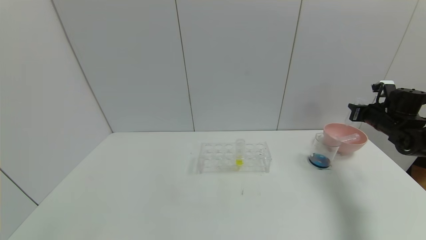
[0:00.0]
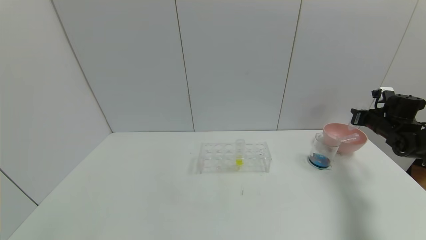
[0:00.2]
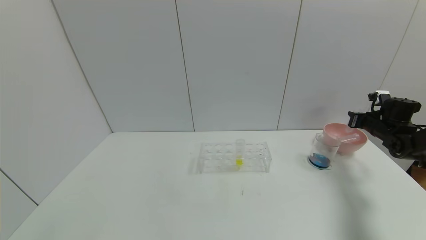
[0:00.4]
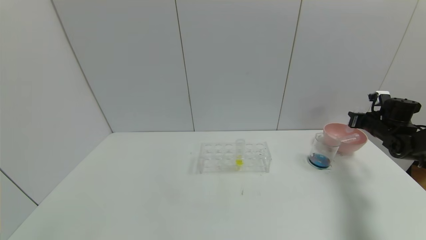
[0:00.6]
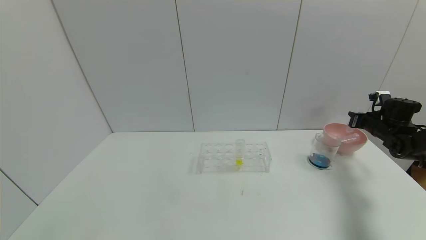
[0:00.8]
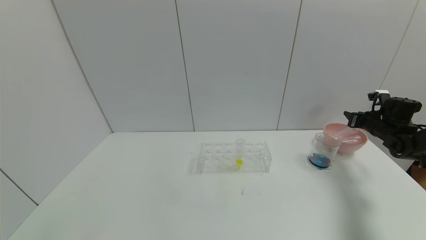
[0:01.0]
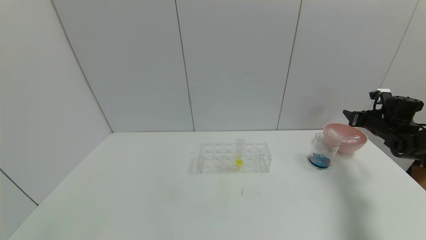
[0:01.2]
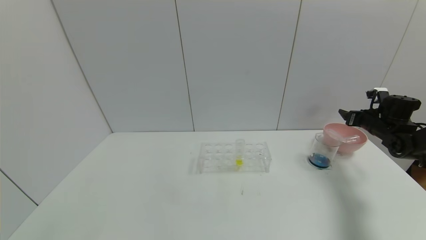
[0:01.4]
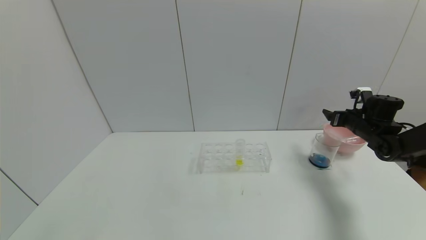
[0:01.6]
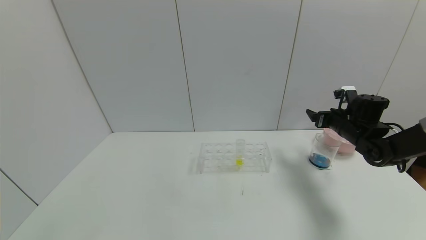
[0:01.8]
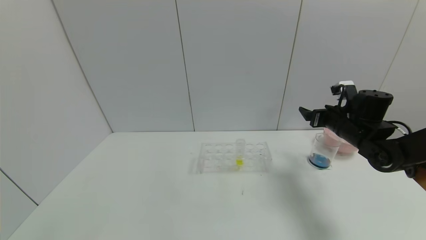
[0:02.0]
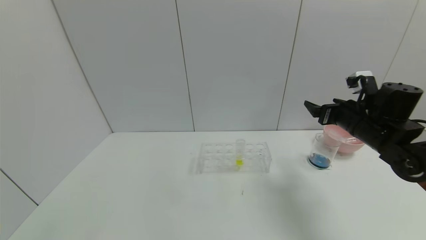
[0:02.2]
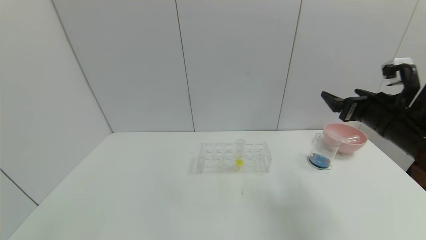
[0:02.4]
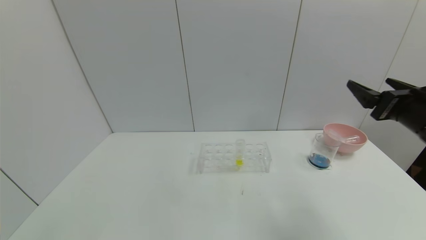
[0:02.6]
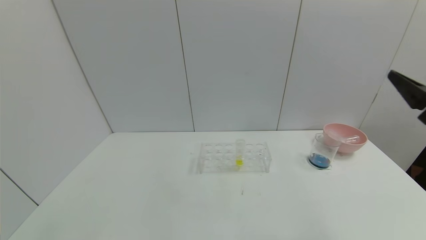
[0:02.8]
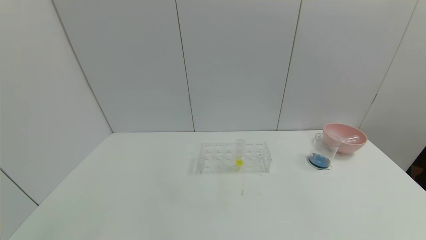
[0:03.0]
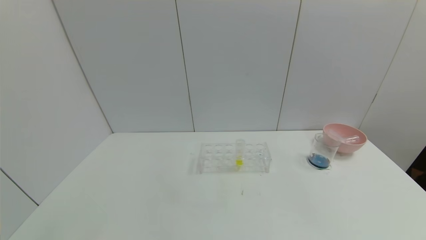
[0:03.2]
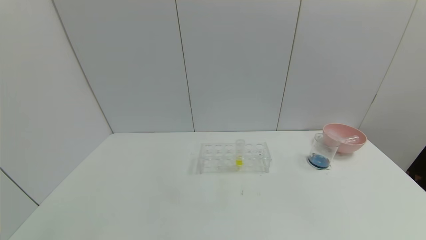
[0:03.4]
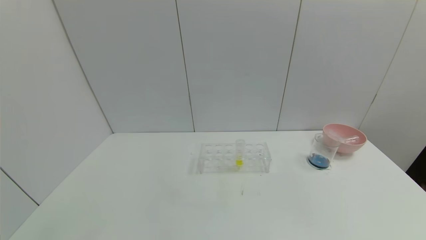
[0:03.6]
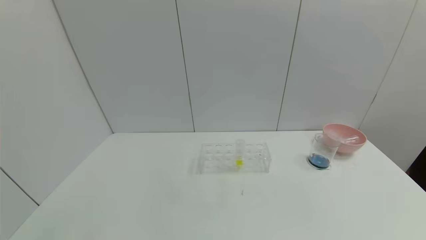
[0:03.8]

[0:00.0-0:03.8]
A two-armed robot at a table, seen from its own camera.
Task of the whole recording: pick up the test tube with red pigment and the test tube with blue pigment by grippers and pour them into the container.
0:00.0 to 0:01.2: The right gripper opens.
0:01.2 to 0:02.6: The right gripper goes approximately 30 cm backward, to the left and upward, and opens up.
0:02.6 to 0:03.8: The right gripper travels backward by some 30 cm.

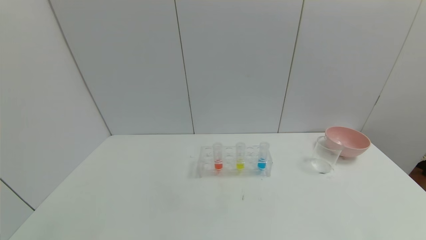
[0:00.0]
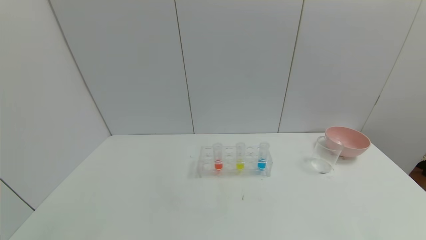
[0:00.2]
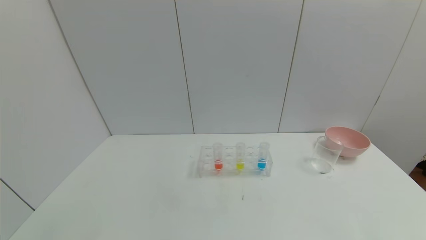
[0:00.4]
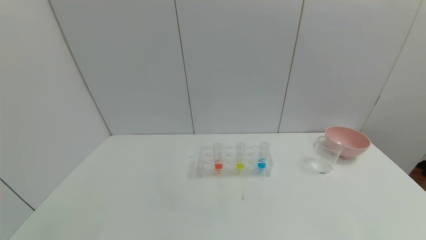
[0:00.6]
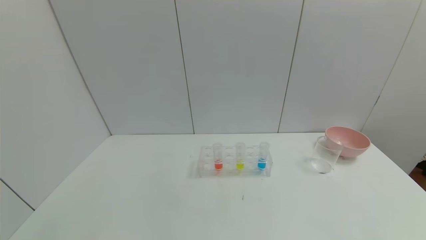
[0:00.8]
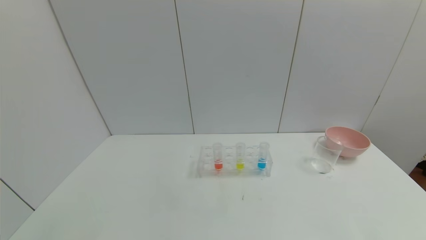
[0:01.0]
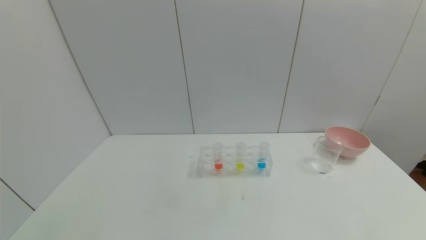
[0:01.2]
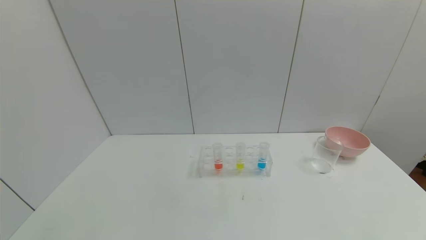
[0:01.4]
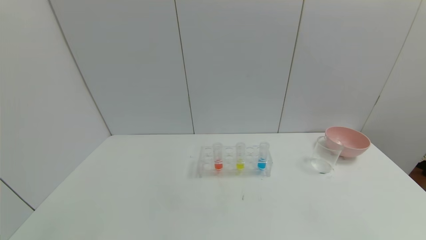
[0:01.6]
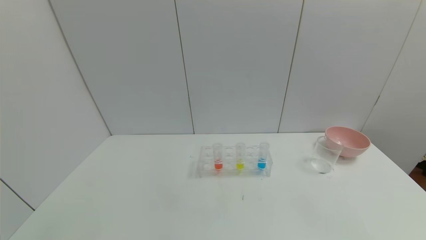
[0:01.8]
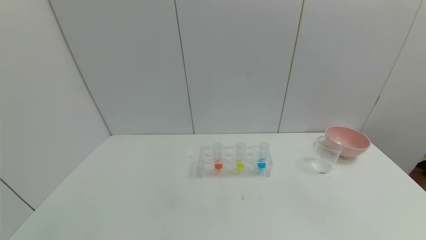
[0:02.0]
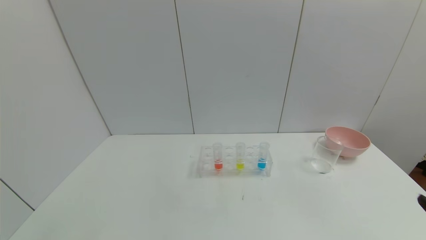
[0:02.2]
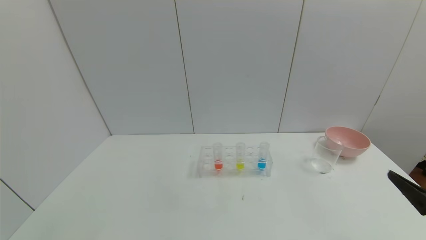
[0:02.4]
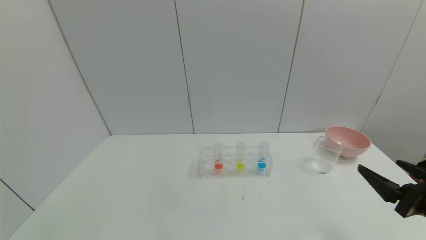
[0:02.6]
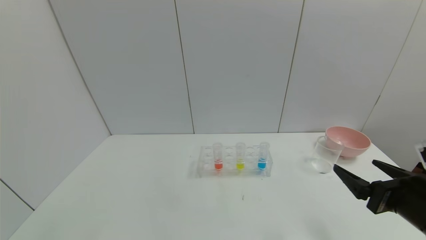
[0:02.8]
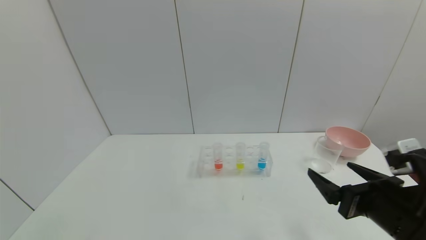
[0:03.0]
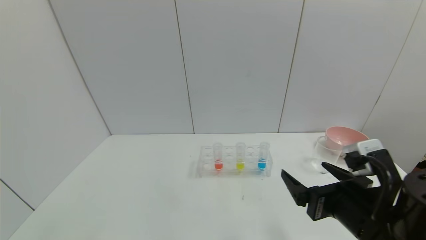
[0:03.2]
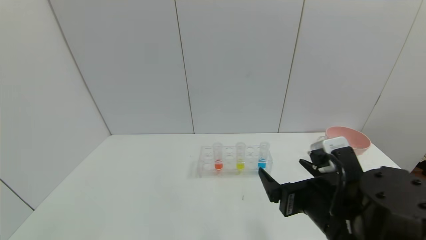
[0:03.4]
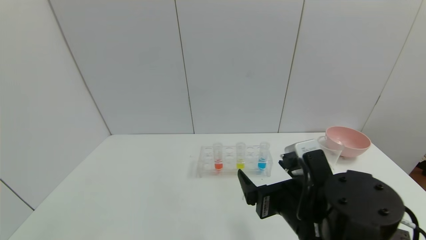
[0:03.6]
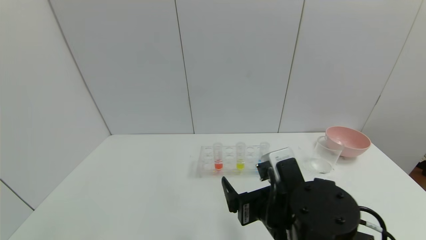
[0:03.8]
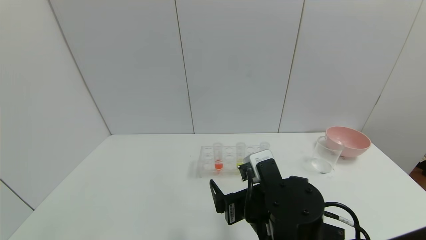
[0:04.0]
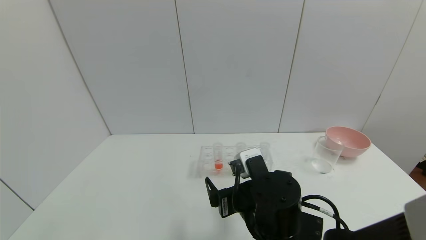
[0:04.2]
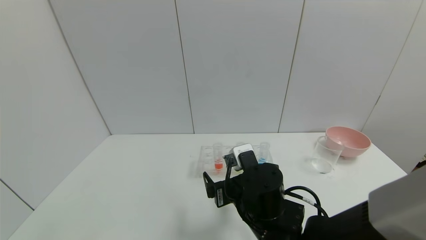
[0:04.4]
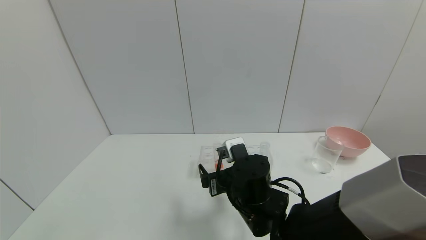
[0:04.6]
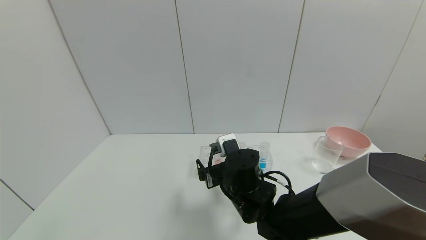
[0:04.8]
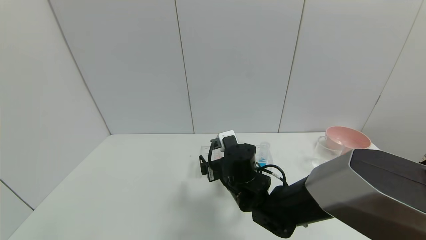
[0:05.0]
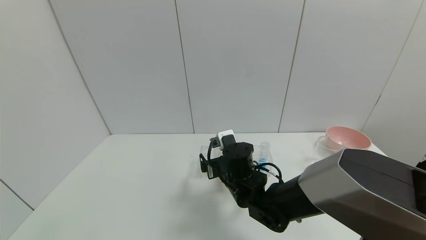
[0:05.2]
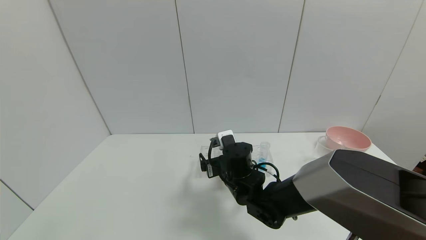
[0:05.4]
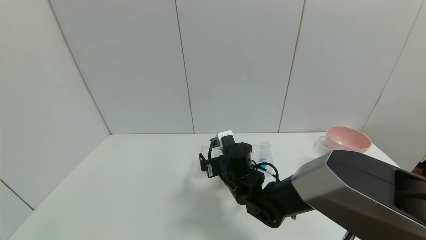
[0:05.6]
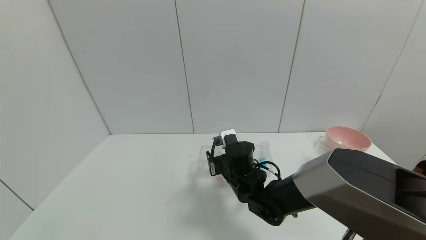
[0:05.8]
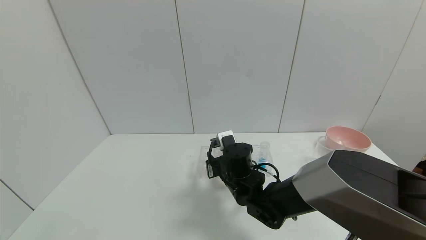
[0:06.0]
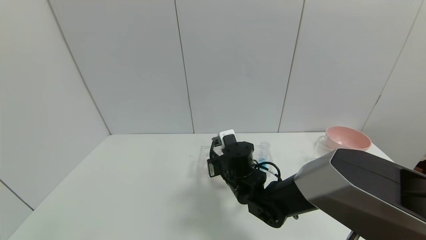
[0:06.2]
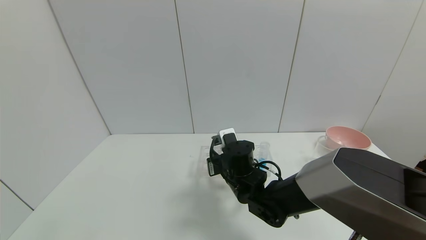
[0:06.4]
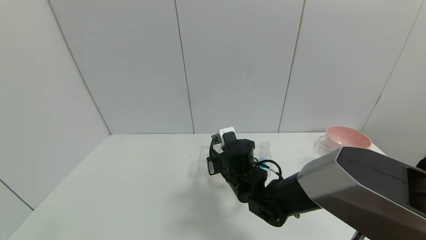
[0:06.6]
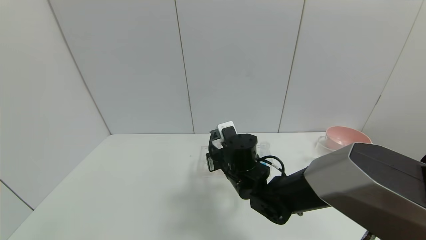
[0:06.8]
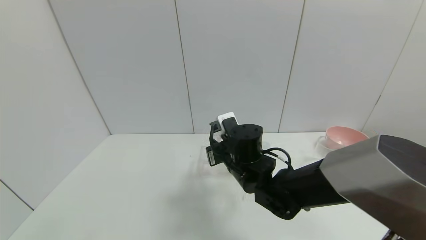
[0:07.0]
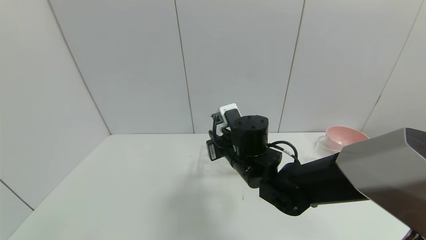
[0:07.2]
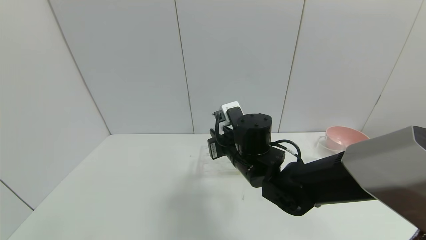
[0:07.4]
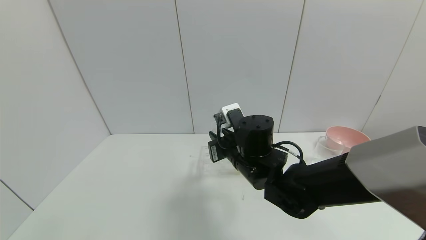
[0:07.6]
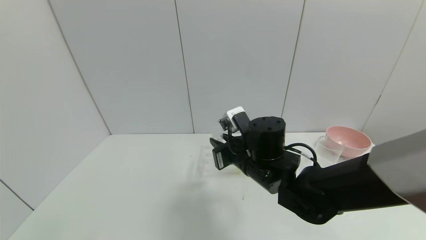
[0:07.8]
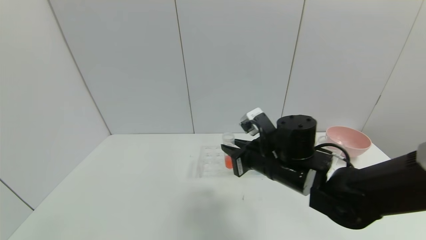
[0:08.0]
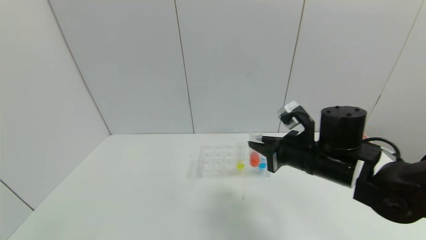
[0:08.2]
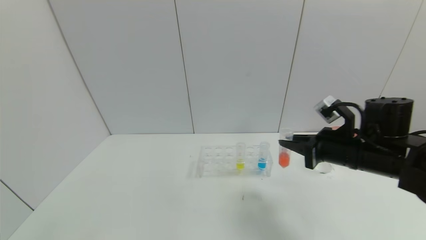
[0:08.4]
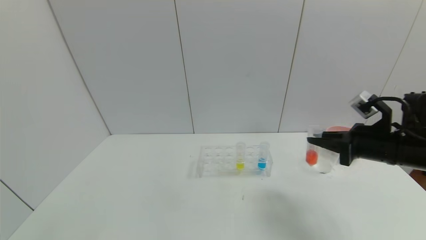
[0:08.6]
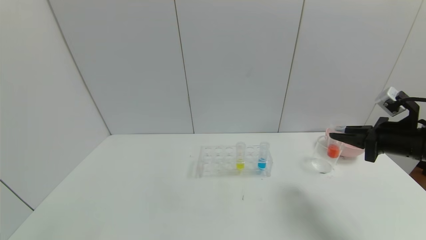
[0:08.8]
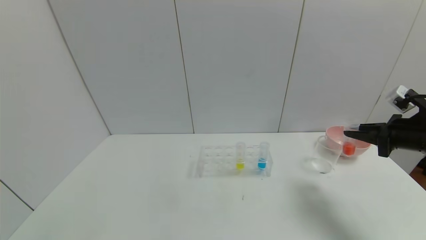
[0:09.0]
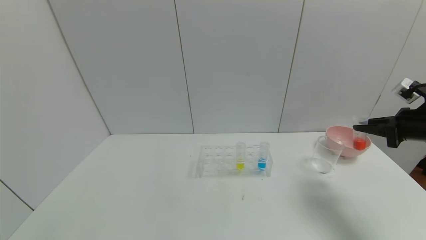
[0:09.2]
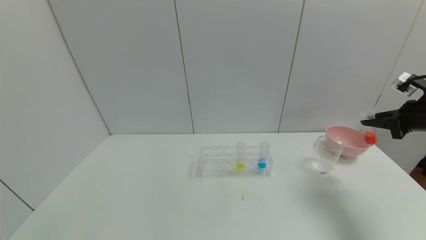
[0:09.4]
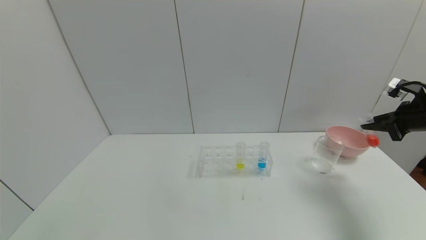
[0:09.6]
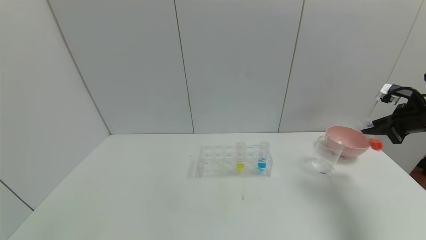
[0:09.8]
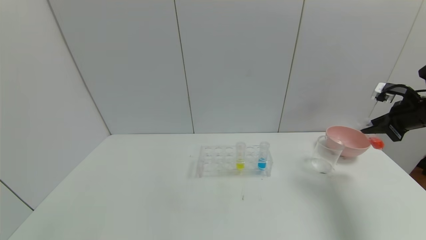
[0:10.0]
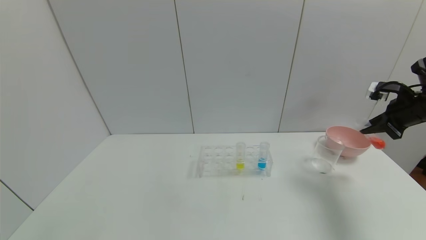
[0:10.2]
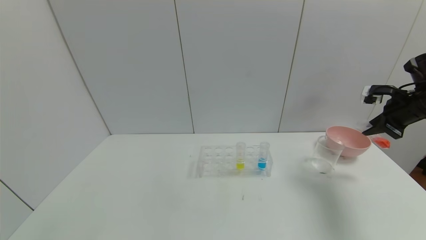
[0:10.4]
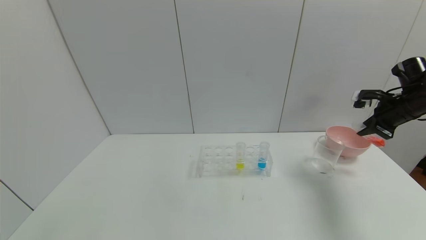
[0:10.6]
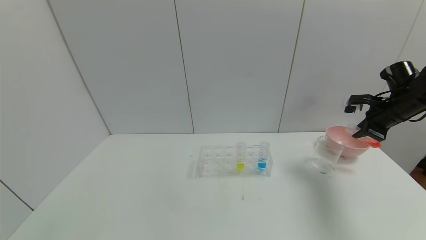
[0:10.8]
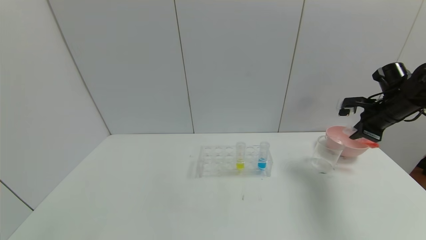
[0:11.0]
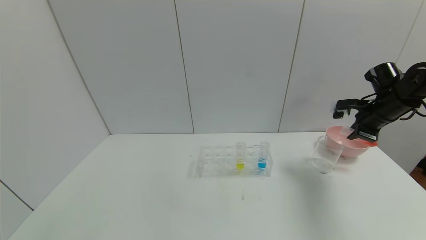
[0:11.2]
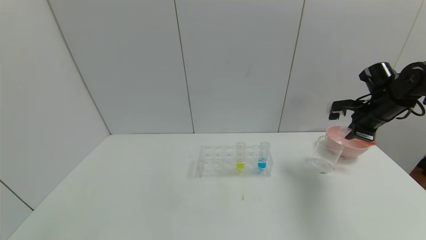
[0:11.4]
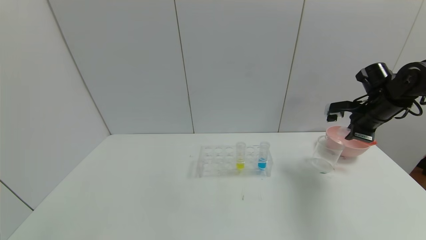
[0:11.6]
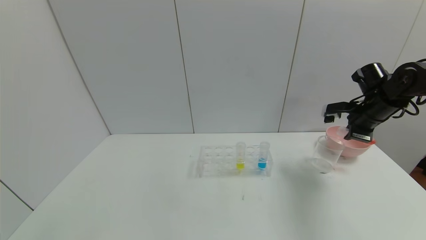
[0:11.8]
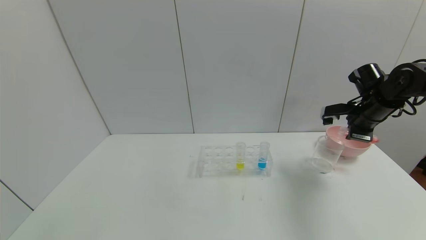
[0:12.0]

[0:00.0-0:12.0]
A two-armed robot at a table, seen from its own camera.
Task of the whole recording: pick up the test tube with red pigment and the test tube with blue pigment by grippers and pour them into the container.
Step, 0:00.0 to 0:09.0: Pick up the test tube containing the red reagent with right gripper.
0:01.6 to 0:03.0: The right gripper is displaced forward and to the left by approximately 20 cm.
0:03.0 to 0:04.4: The right gripper shifts about 20 cm to the left and forward.
0:04.4 to 0:06.0: The right gripper shifts some 10 cm forward, and closes up.
0:06.0 to 0:07.6: The right gripper shifts roughly 10 cm upward.
0:07.6 to 0:09.0: The right gripper heads to the right, covering about 35 cm.
0:09.0 to 0:10.4: The right gripper is displaced forward by about 10 cm.
0:10.4 to 0:12.0: The right gripper is displaced to the left by approximately 5 cm.

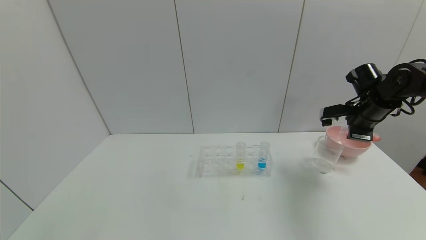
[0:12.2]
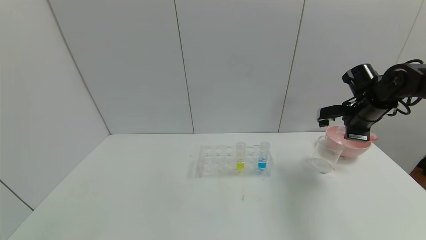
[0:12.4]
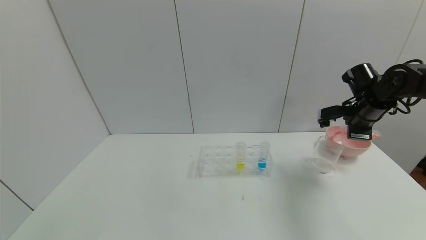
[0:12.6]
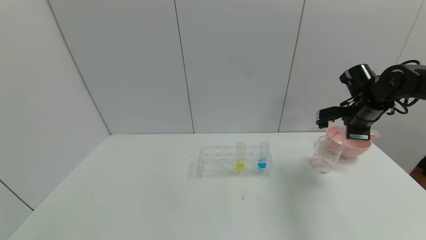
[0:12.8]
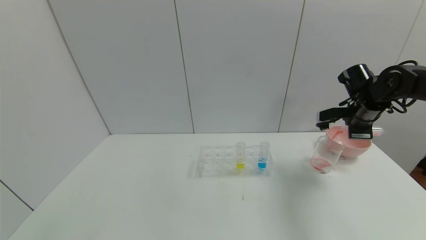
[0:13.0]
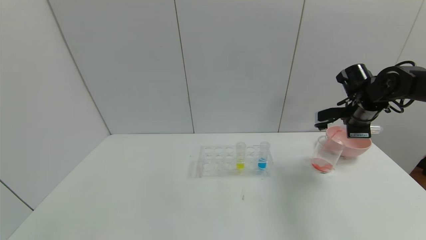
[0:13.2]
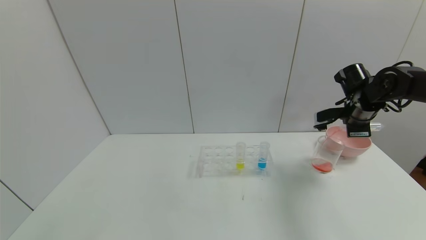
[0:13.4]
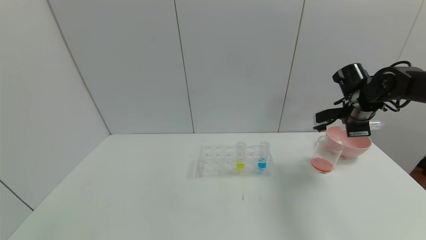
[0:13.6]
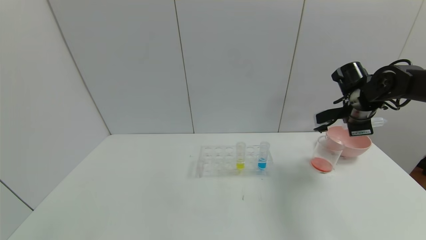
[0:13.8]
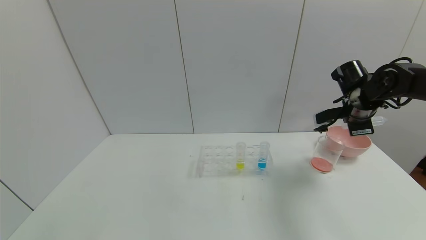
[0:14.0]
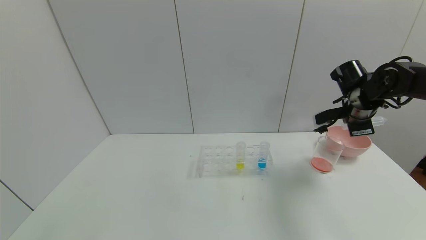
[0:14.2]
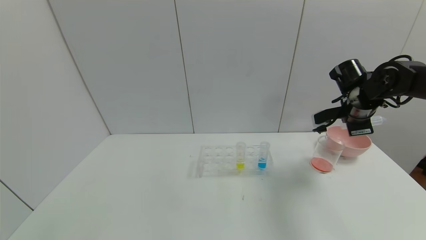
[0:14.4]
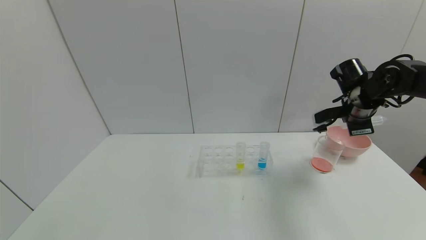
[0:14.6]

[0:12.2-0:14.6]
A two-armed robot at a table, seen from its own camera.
Task of the whole recording: pick up the test tube with red pigment and the test tube with blue pigment by grippers and pour them into the container.
0:12.2 to 0:13.4: The grippers make only small movements.
0:13.4 to 0:14.6: The grippers stay close to where they were, moving slightly.
